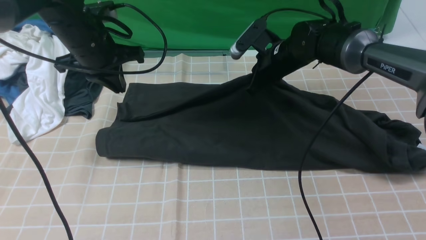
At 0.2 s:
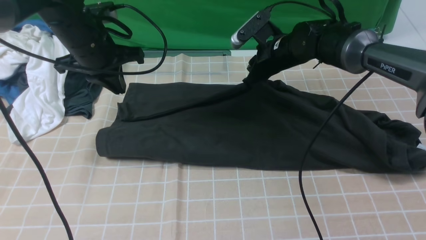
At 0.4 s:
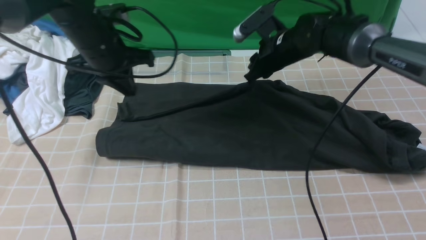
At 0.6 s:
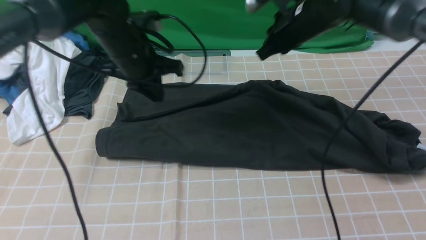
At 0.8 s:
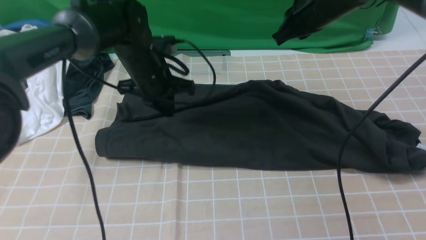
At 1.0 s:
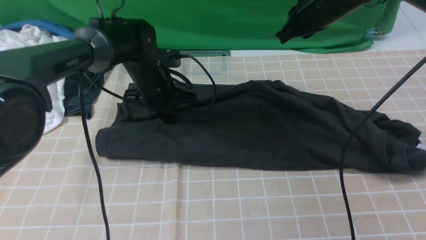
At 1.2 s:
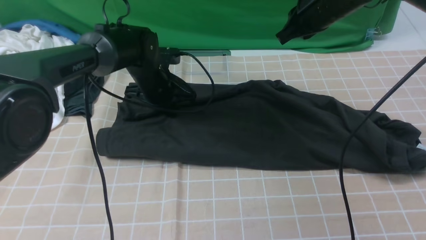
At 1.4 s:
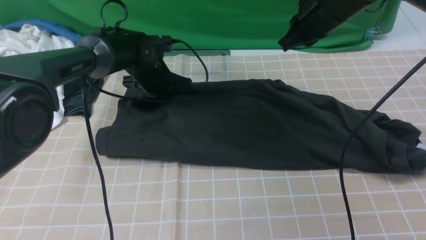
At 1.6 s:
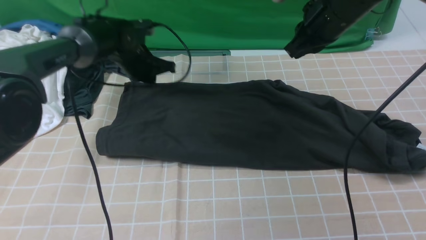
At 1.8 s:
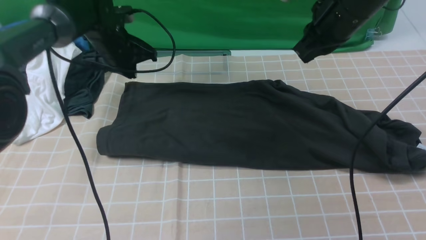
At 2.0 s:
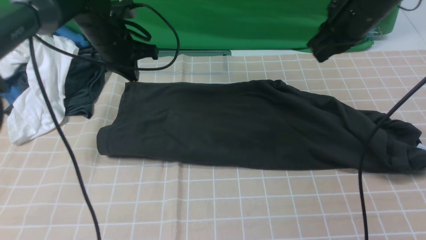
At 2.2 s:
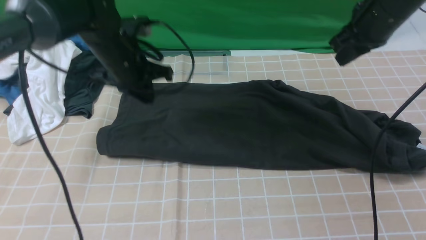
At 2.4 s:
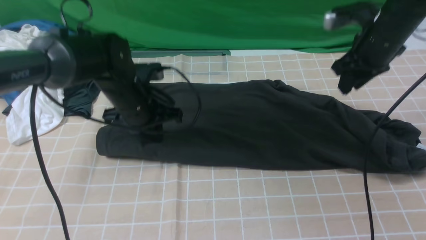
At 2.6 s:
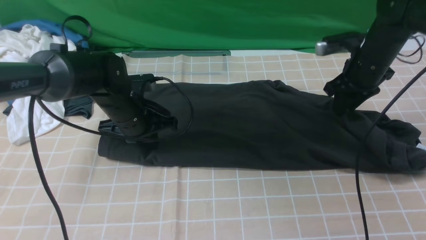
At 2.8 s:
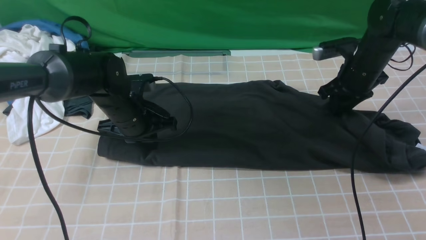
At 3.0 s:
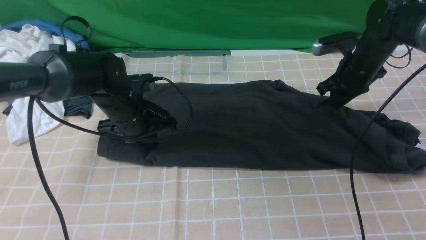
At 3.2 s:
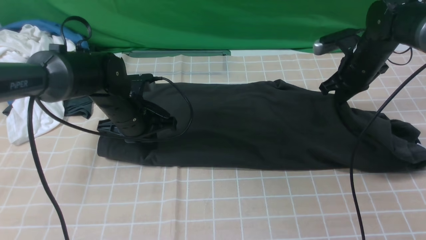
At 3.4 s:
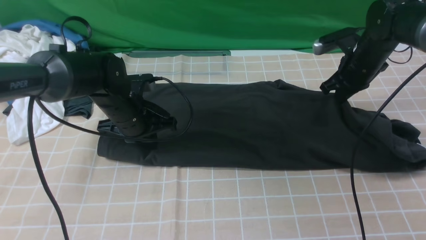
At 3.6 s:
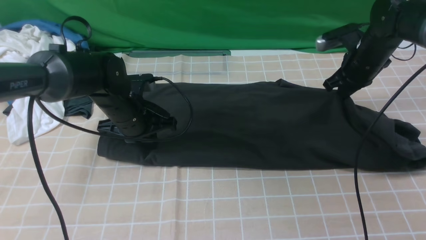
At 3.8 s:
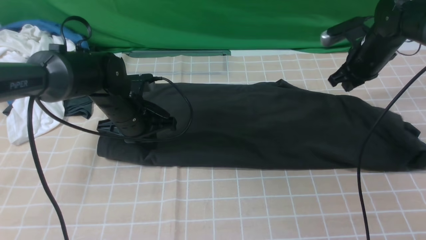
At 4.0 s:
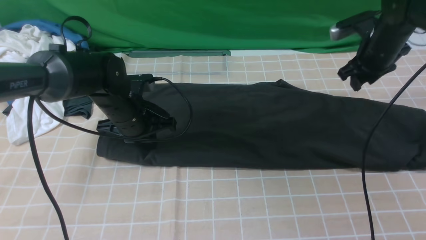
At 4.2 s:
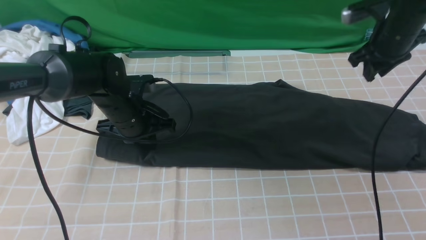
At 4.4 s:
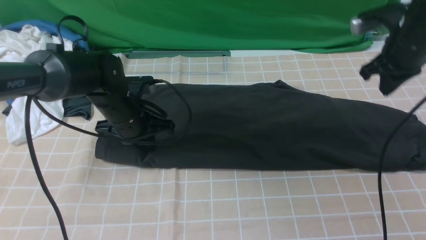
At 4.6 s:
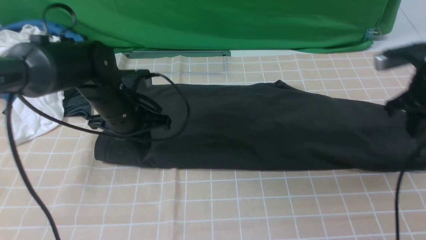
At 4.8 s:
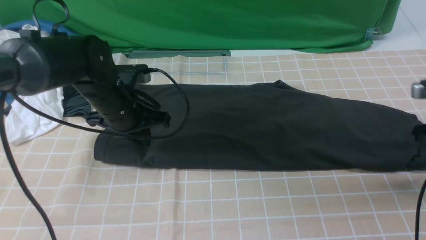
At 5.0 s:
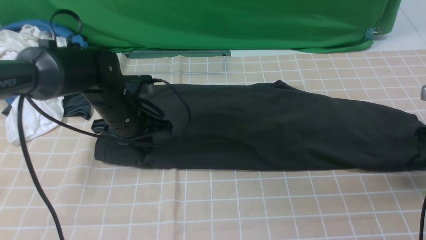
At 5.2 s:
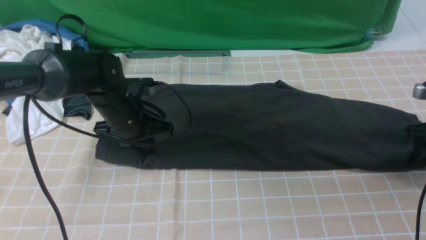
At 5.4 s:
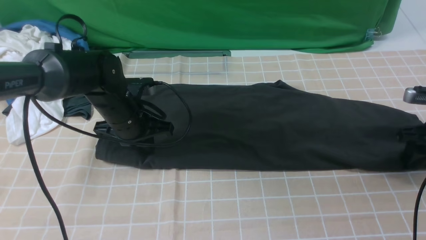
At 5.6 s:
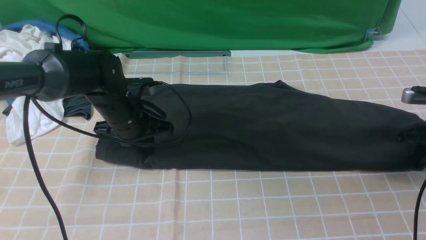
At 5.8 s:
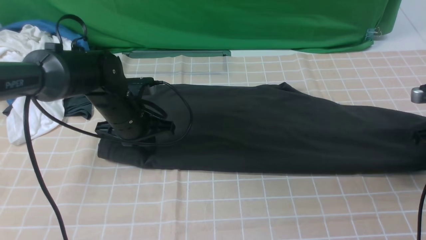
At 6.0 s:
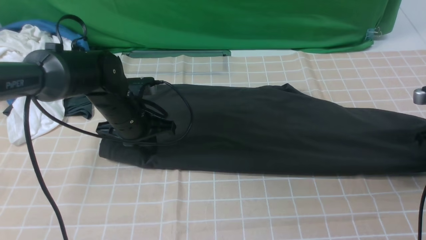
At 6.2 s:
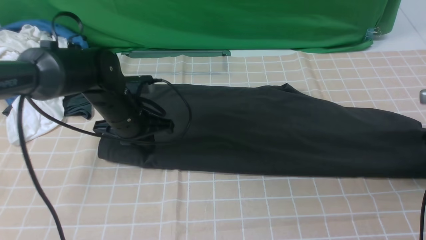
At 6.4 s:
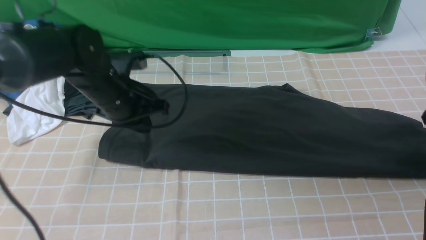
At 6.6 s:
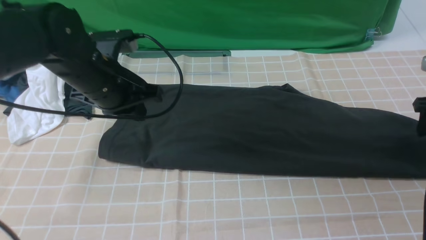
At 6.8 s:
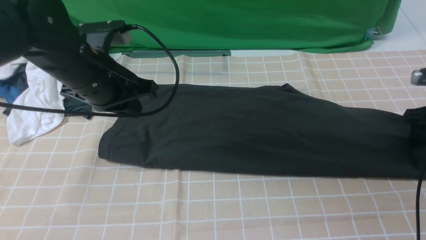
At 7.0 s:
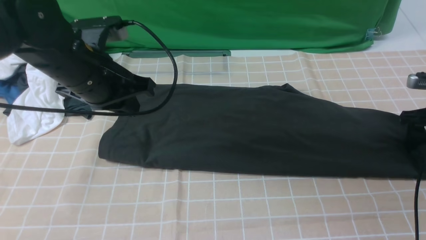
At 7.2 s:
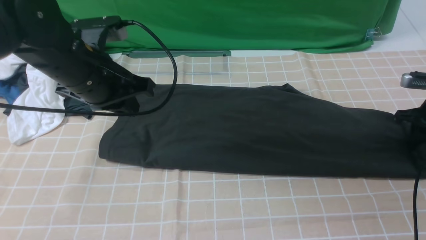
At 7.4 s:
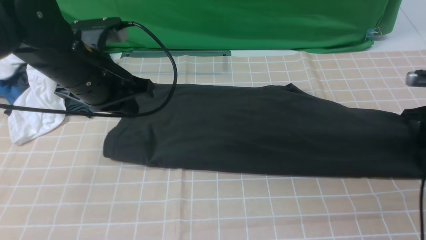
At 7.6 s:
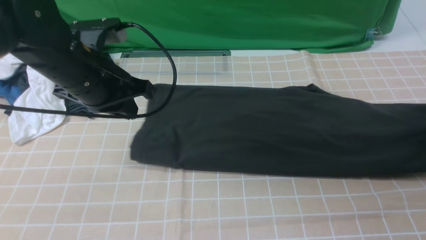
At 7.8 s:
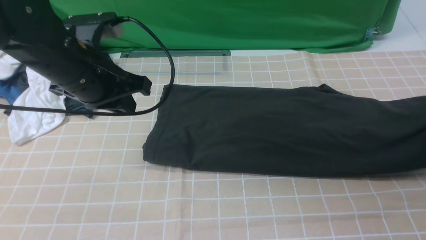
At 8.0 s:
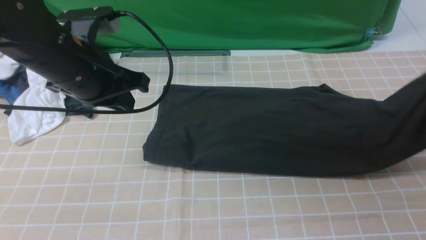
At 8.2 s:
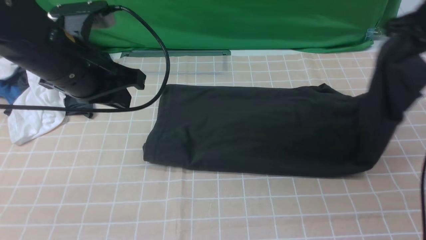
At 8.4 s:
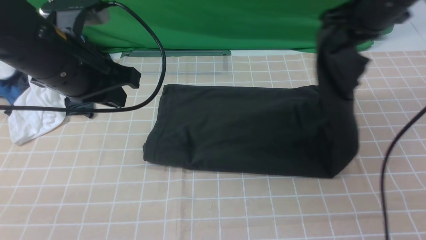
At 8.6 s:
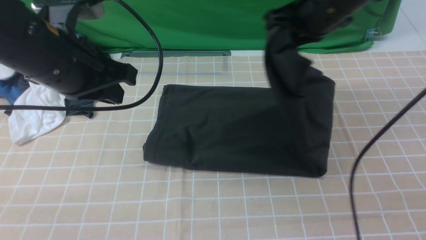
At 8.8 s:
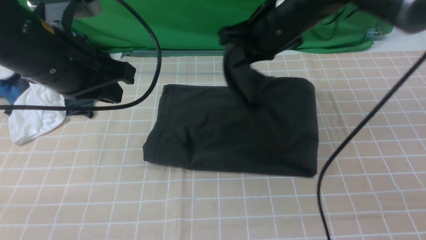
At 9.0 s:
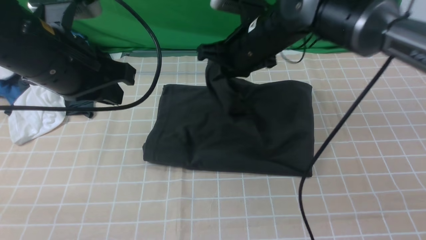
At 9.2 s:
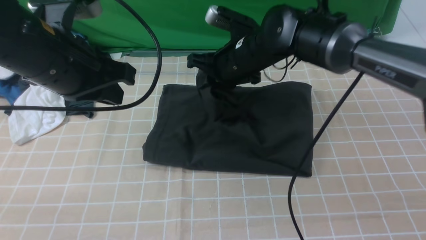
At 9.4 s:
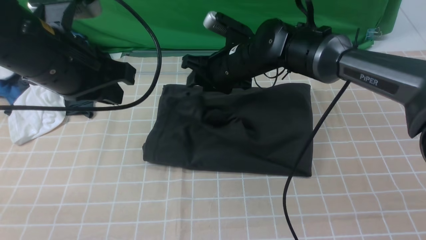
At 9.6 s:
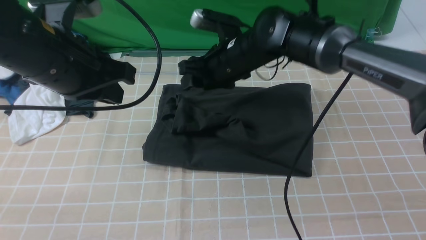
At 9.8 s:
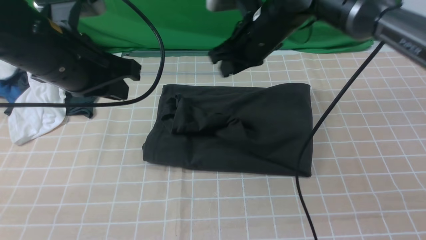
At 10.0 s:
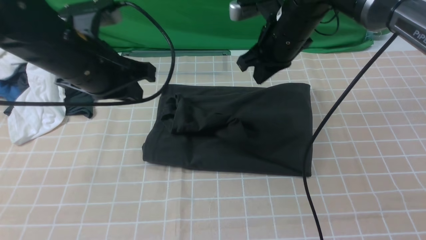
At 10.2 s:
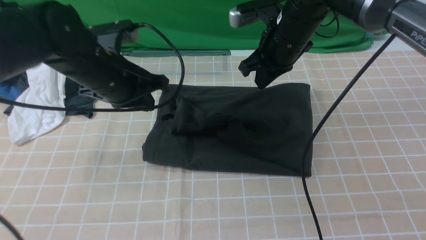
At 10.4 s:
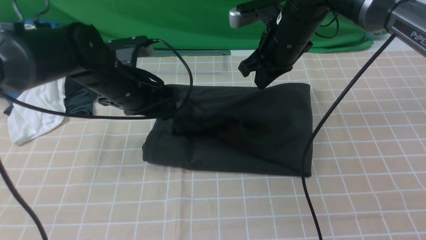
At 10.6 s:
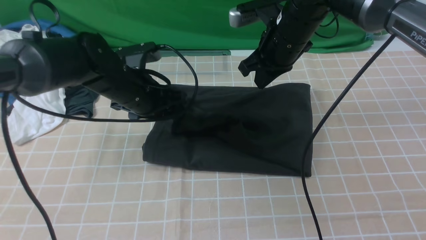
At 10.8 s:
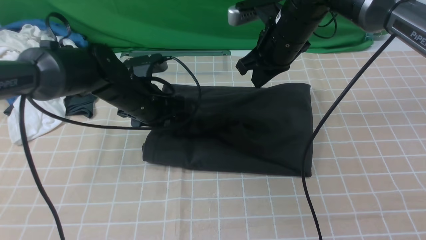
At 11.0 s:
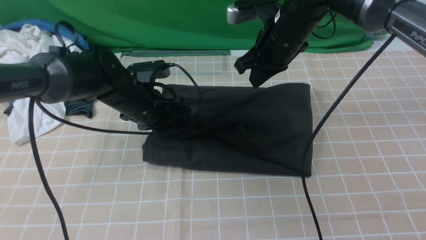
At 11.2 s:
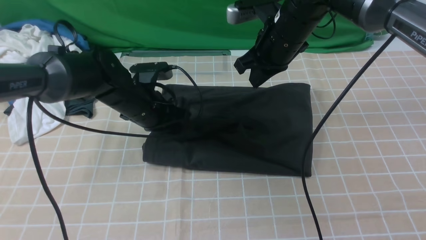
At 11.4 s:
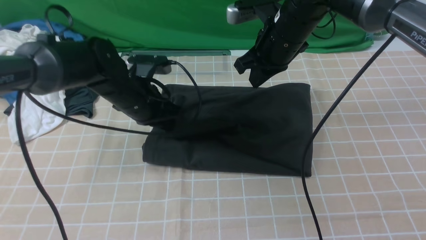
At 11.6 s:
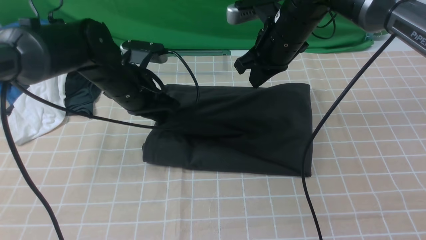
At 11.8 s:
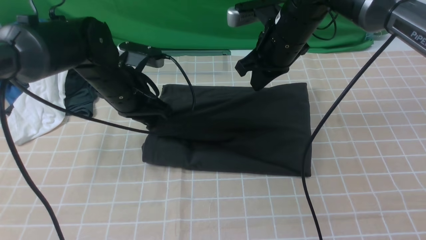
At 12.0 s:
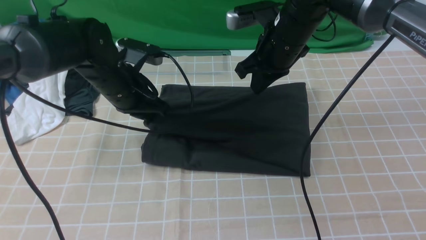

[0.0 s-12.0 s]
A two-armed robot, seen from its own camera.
Step, 0.0 to 7.2 s: use the right arm to clamp the right edge of the fabric.
Step, 7.4 to 9.4 s: use the right arm to drag the right edge of the fabric to the left and folds it over the left edge.
0.0 to 1.6 s: The right gripper heads upward, backward and to the right, covering roughly 15 cm. The left gripper goes about 10 cm downward and forward.
1.6 to 3.0 s: The right gripper goes roughly 15 cm downward and to the right. The left gripper goes approximately 10 cm backward.
3.0 to 4.4 s: The right gripper goes some 10 cm upward and backward.
4.4 to 6.0 s: The right gripper heads to the right, downward and backward, covering approximately 15 cm, and opens, then closes again.
6.0 to 7.6 s: The right gripper moves some 5 cm, and opens, then closes again, while the left gripper goes some 15 cm upward and backward.
7.6 to 9.0 s: The left gripper shifts by some 5 cm. Meanwhile the right gripper heads to the left, covering some 40 cm.
9.0 to 10.4 s: The left gripper is displaced downward and forward by approximately 15 cm, and opens up. The right gripper moves to the right, approximately 5 cm, and opens, then closes once more.
10.4 to 12.0 s: The left gripper closes up.

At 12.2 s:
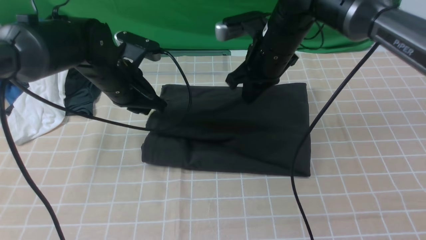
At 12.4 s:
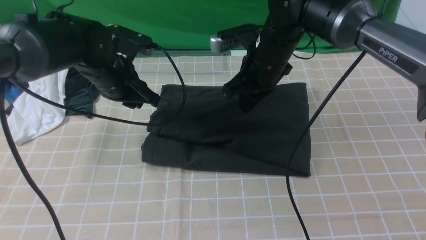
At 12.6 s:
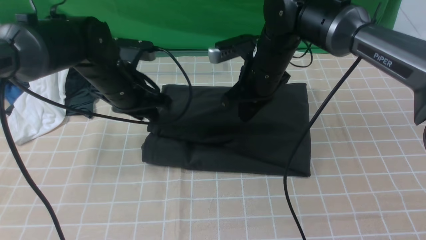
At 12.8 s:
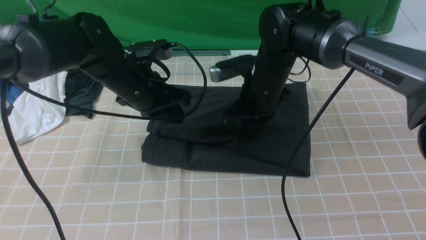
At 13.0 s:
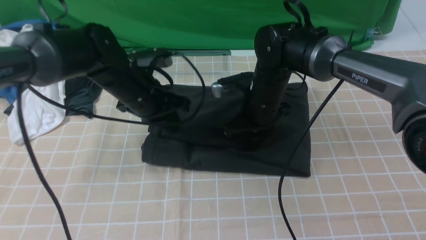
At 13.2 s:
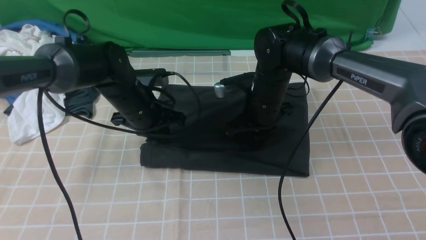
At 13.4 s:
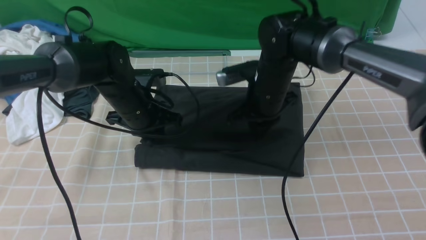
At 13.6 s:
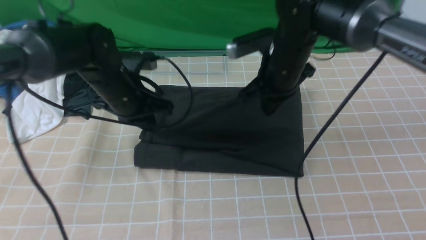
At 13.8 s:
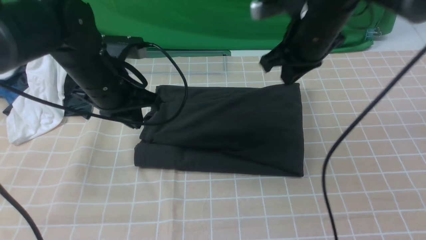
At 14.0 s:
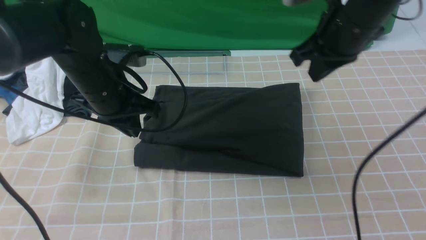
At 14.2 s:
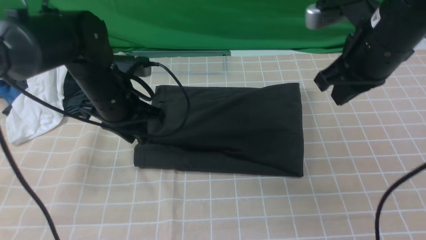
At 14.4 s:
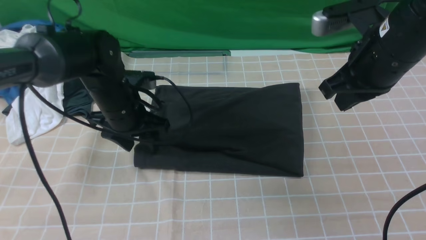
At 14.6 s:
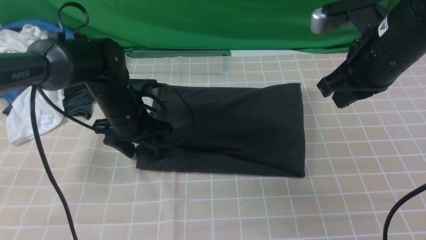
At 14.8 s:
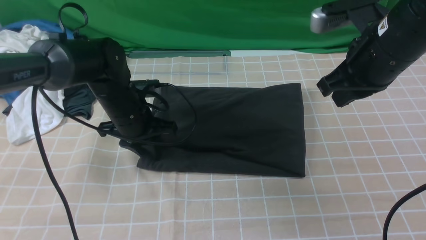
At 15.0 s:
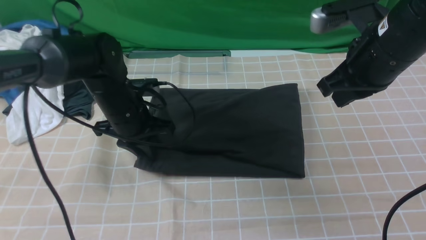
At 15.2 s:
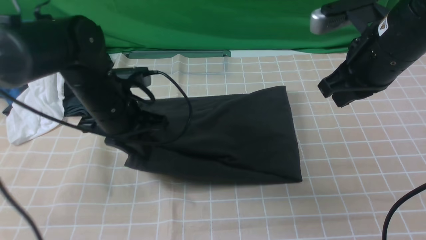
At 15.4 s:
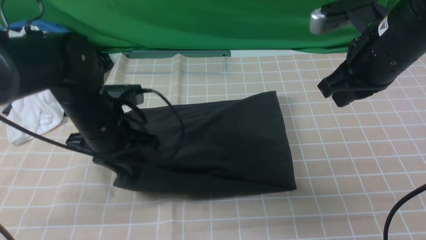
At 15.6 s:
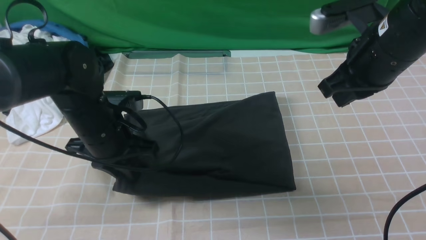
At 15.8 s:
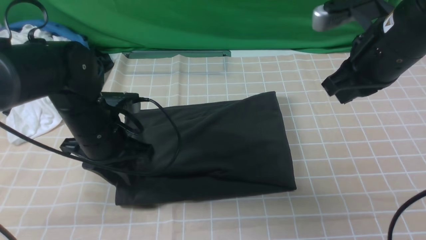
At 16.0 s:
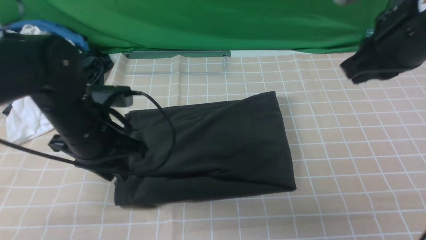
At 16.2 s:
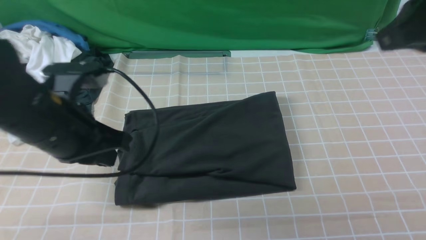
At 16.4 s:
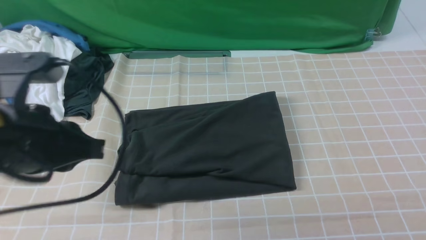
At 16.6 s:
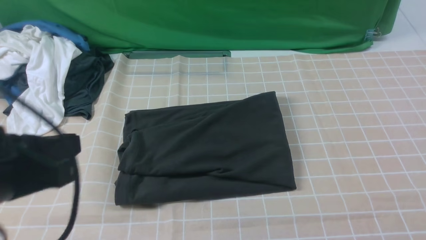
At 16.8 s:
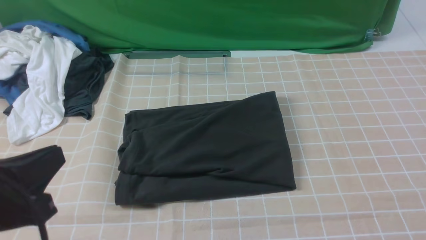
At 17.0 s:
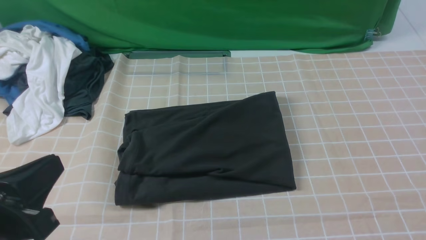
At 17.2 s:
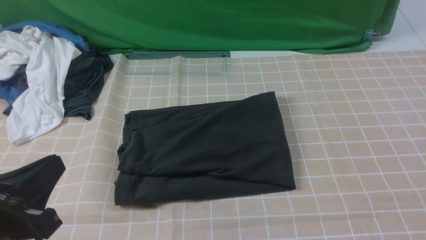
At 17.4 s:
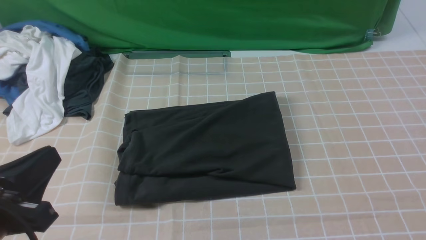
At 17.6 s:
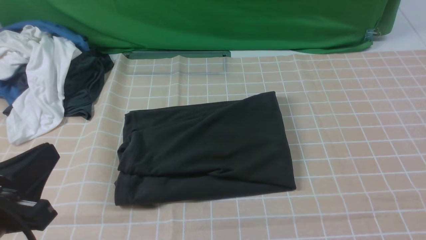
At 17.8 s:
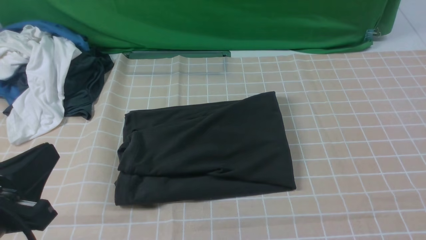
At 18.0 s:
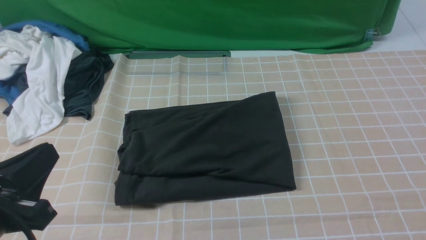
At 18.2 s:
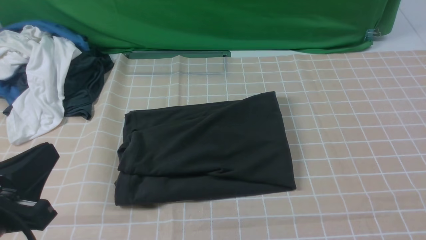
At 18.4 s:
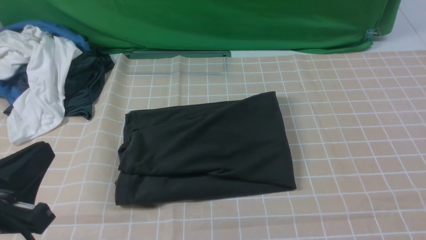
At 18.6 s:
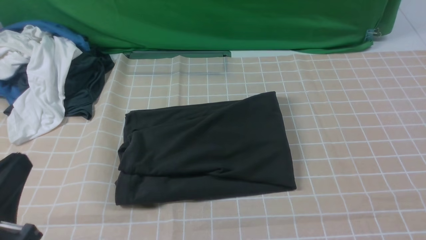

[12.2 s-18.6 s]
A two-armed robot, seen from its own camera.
12.2 to 13.8 s: The right gripper is displaced to the right and upward by about 5 cm.
13.8 to 15.4 s: The left gripper ends up approximately 5 cm from where it was, and opens, then closes once more, while the right gripper shifts some 10 cm backward and to the right.
15.4 to 17.0 s: The grippers both shift backward by about 25 cm.
17.0 to 18.6 s: The grippers move only a little.
